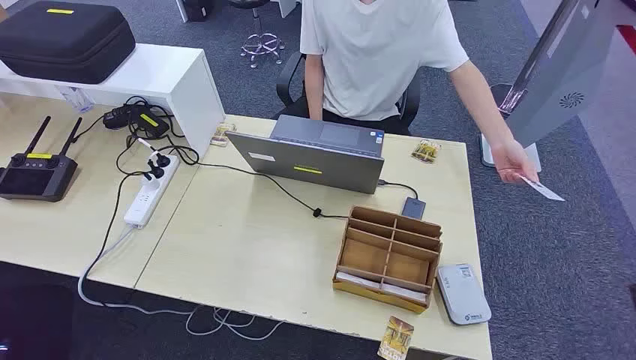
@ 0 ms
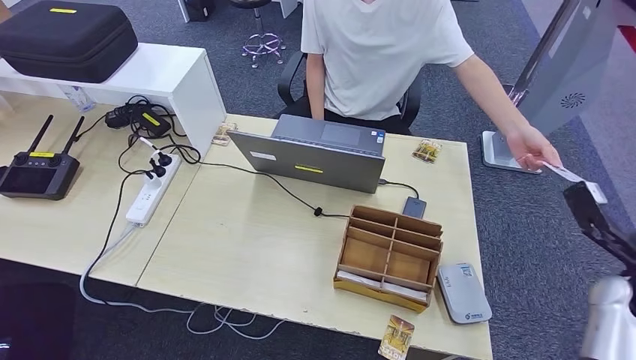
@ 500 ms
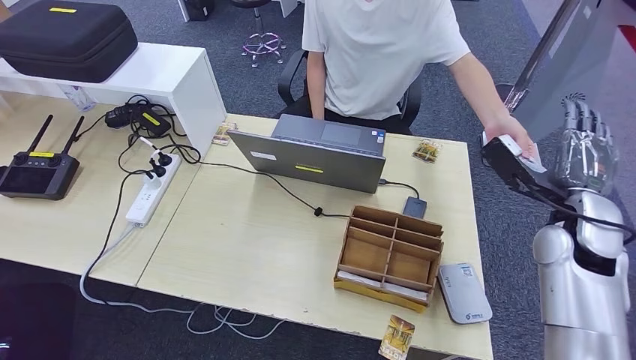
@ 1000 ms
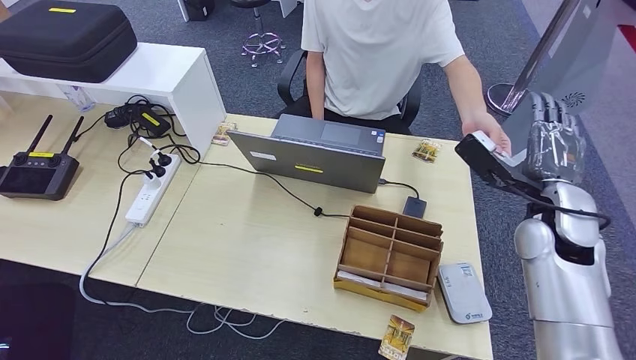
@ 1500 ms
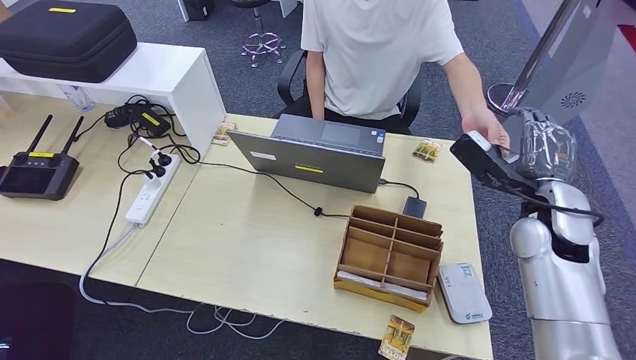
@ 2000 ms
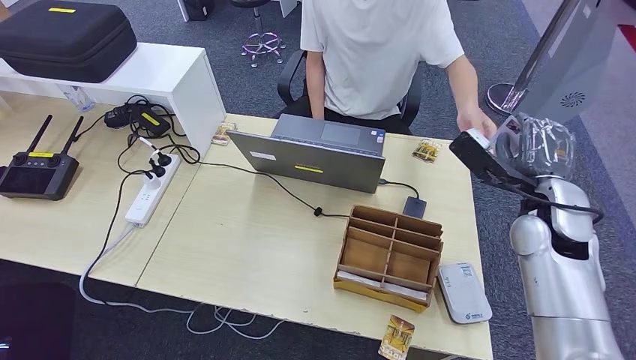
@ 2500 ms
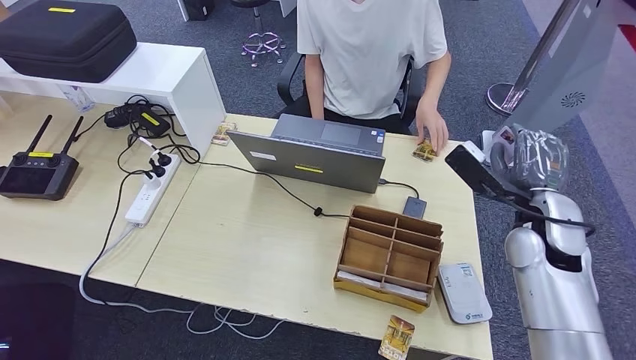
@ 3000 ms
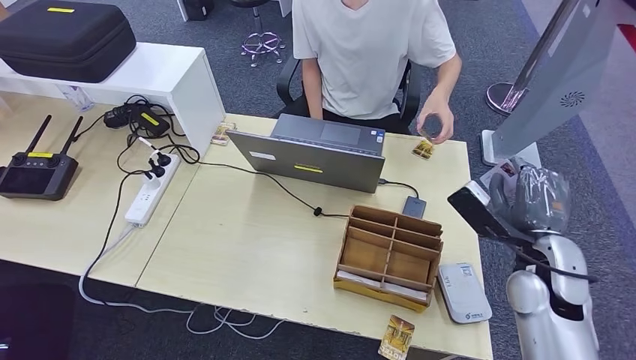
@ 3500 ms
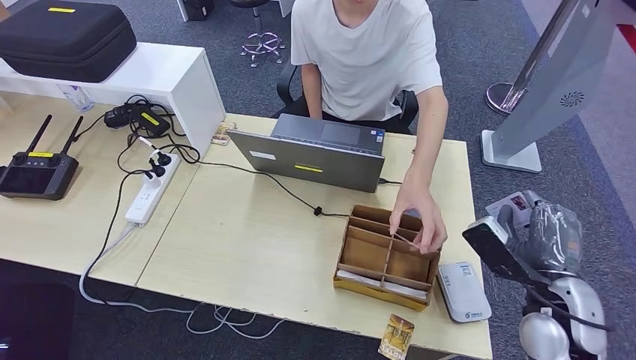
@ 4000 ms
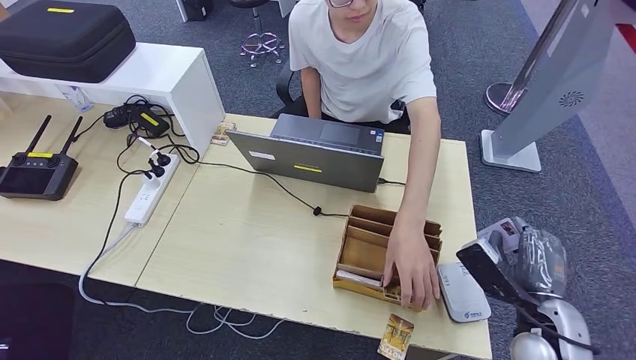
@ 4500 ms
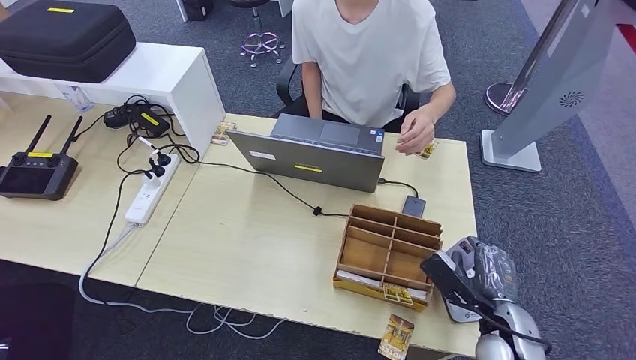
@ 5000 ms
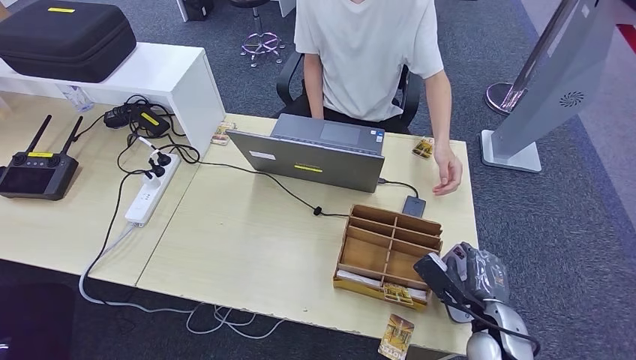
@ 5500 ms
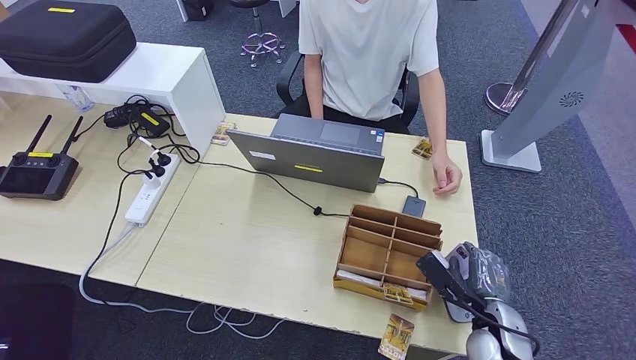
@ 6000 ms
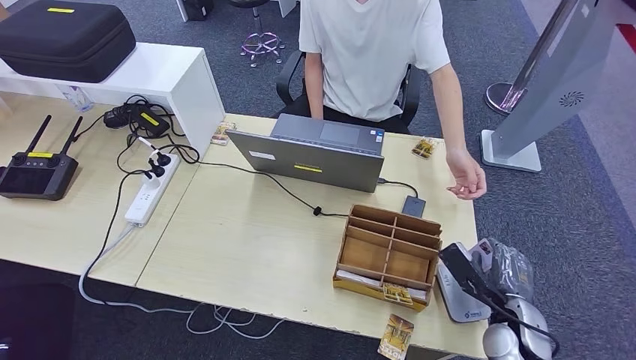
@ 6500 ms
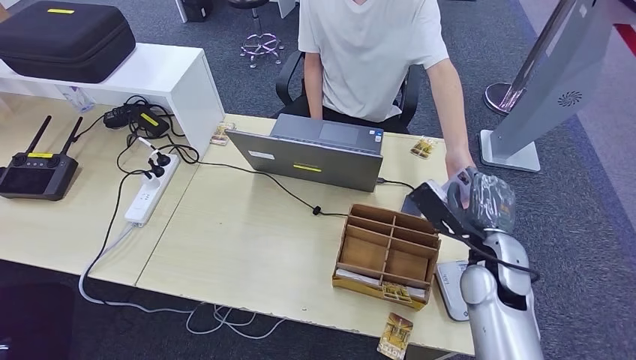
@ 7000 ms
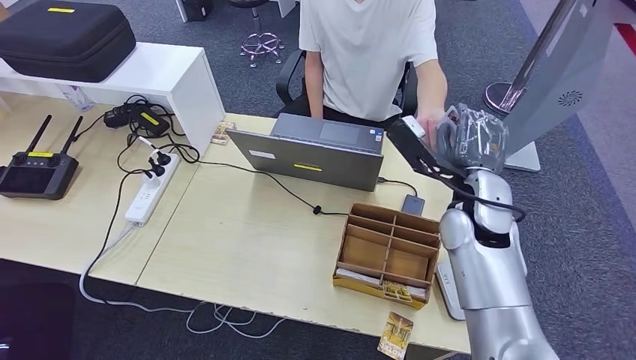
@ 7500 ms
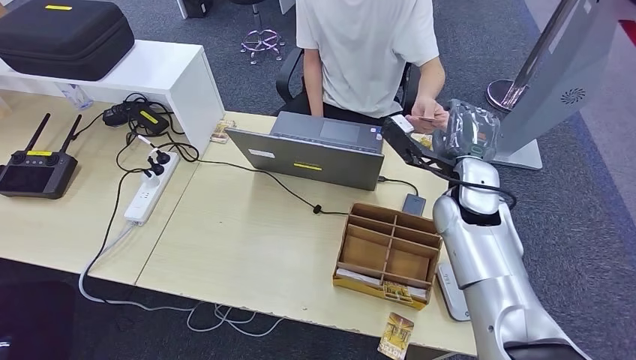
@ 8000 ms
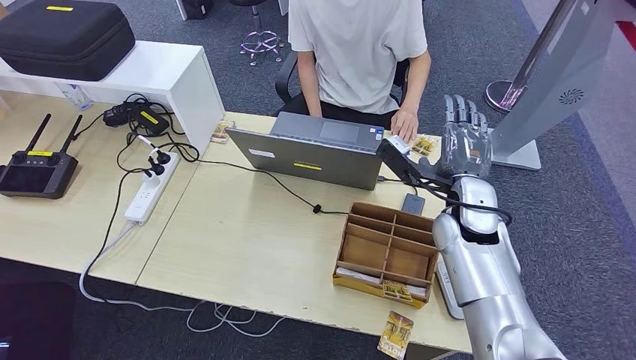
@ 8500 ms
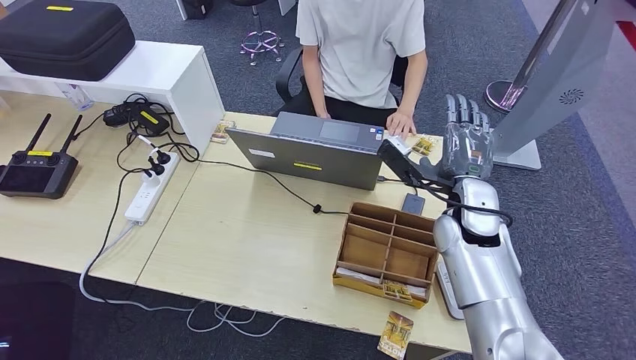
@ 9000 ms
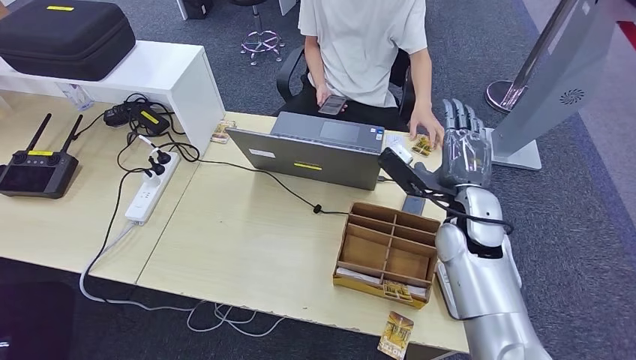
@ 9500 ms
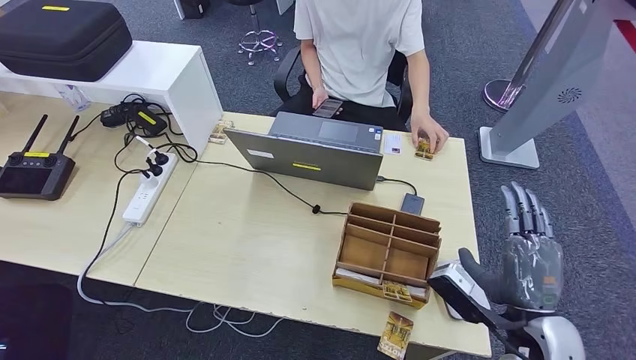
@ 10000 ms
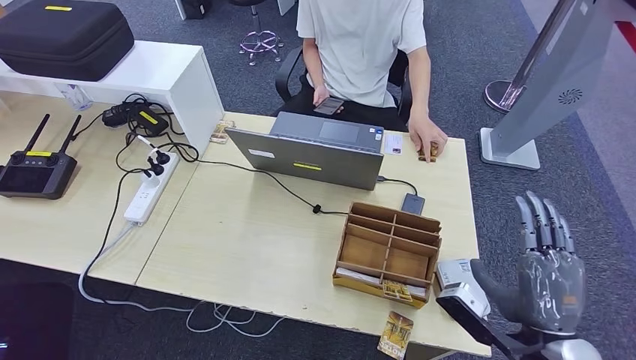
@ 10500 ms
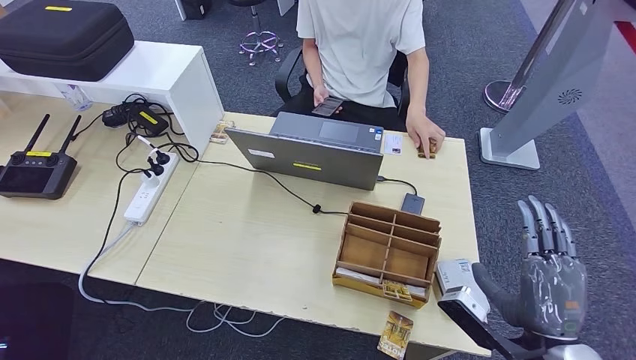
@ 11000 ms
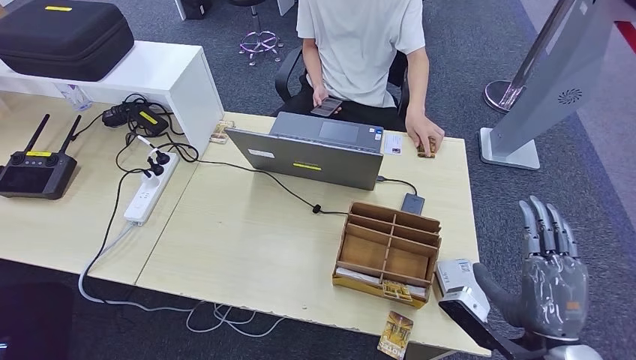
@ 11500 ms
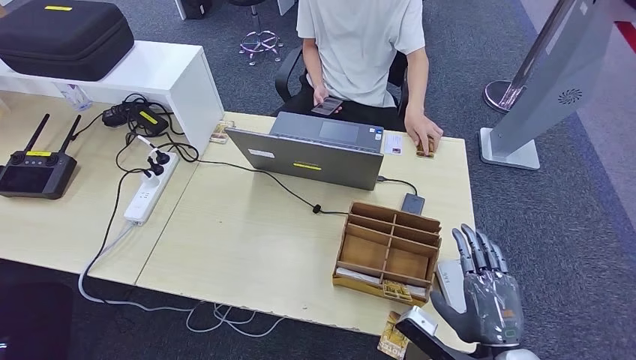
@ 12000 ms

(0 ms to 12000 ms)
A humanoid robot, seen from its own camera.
Step, 0 ms - 3500 ms: Take the ID card from the person's hand.
Step, 4000 ms - 6000 ms: Place the ID card on the card reader.
Step, 7000 ms - 8000 ms: Hand the ID card to the person.
2000 ms - 4000 ms: The right hand shifts approximately 15 cm backward and downward.
4000 ms - 6000 ms: The right hand shifts approximately 10 cm downward.
6000 ms - 8000 ms: The right hand travels upward, forward and to the left by some 25 cm.
8000 ms - 10000 ms: The right hand is displaced backward, to the right and downward by roughly 25 cm.
10000 ms - 12000 ms: The right hand shifts by roughly 5 cm.

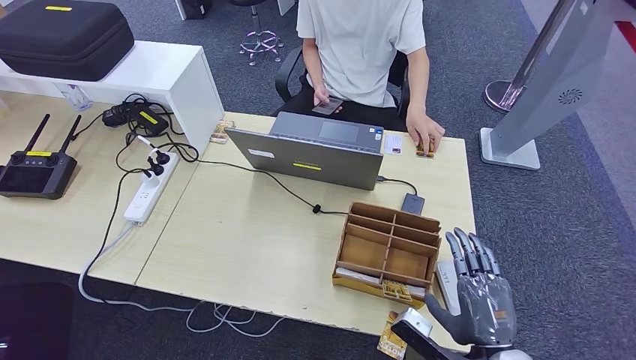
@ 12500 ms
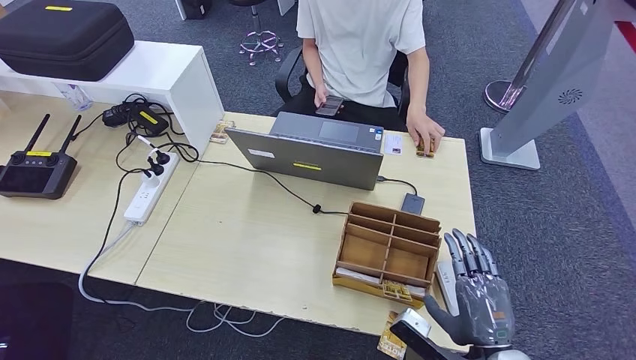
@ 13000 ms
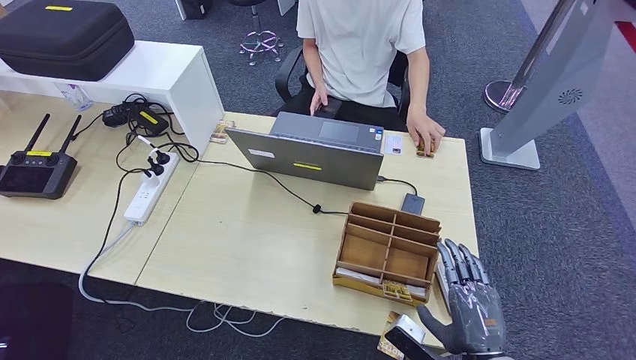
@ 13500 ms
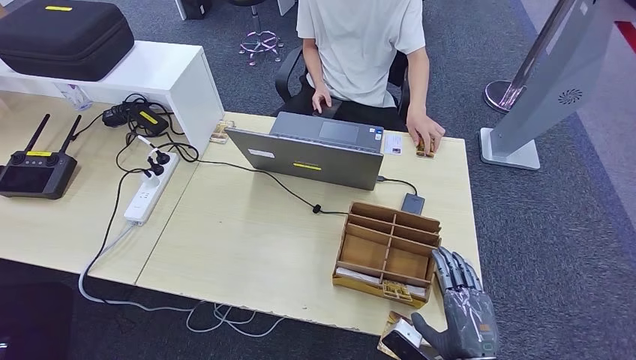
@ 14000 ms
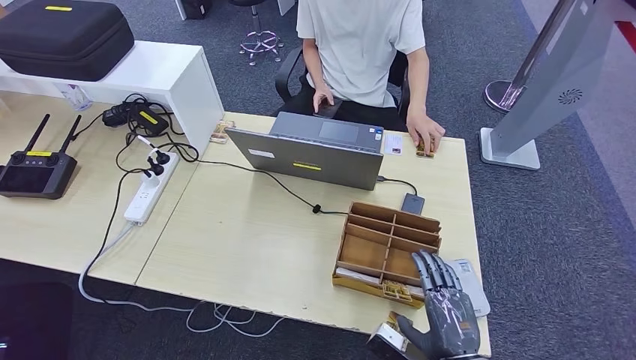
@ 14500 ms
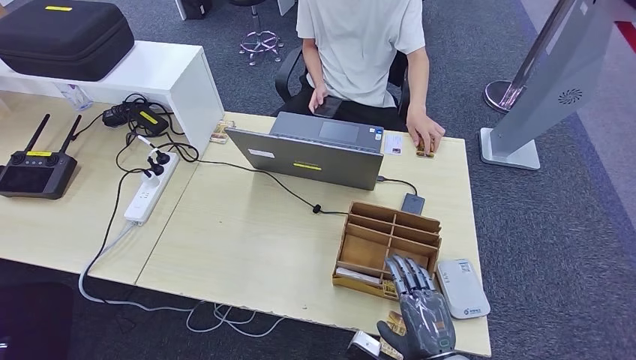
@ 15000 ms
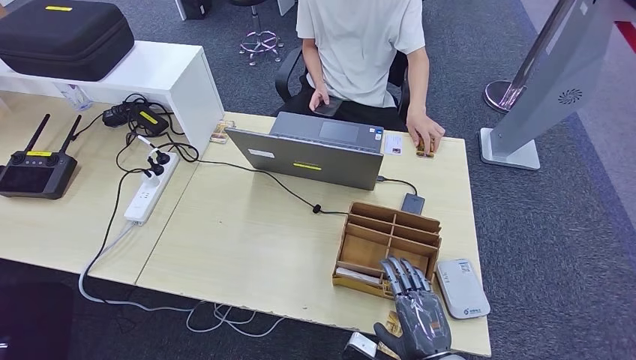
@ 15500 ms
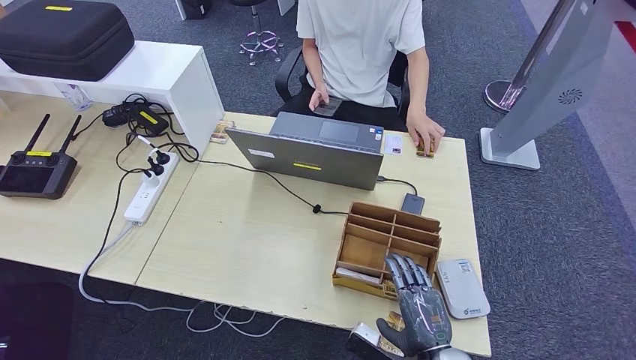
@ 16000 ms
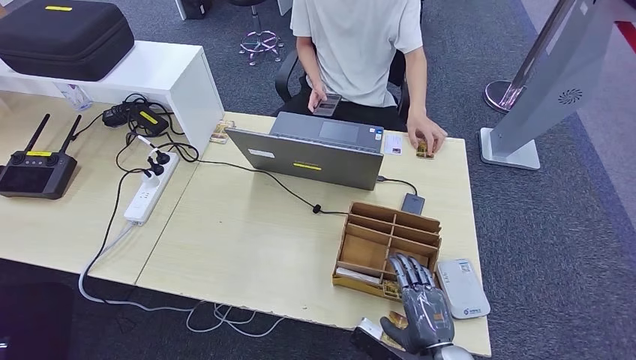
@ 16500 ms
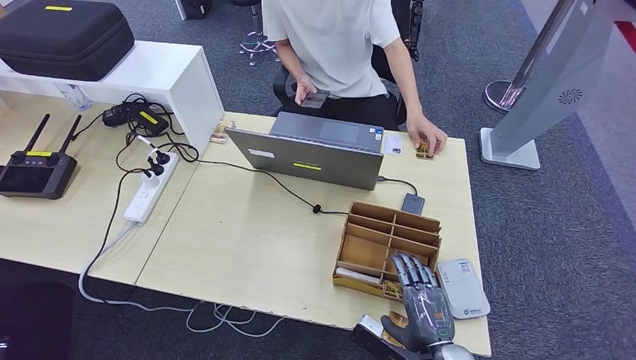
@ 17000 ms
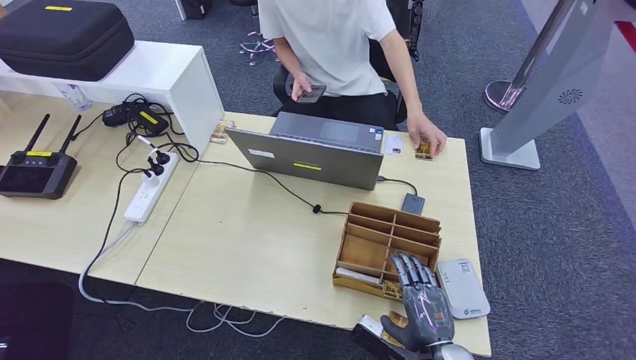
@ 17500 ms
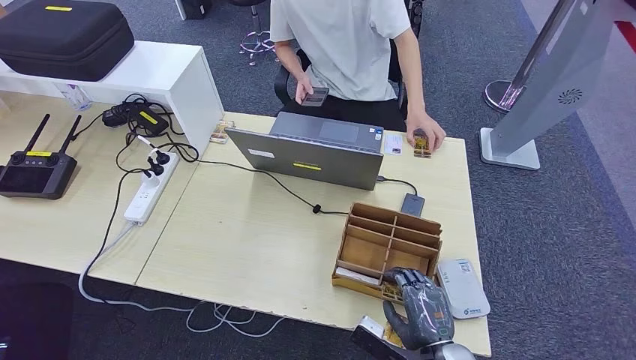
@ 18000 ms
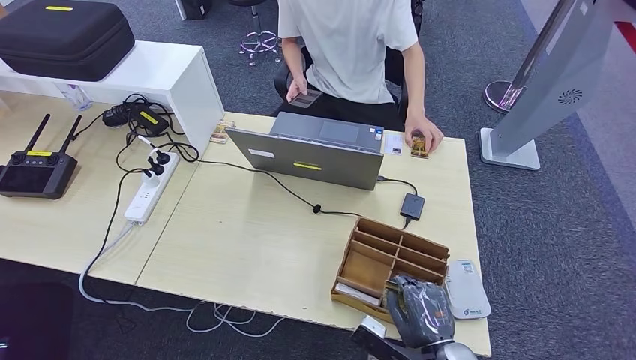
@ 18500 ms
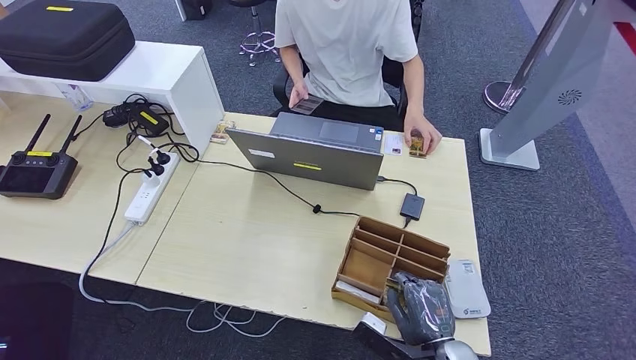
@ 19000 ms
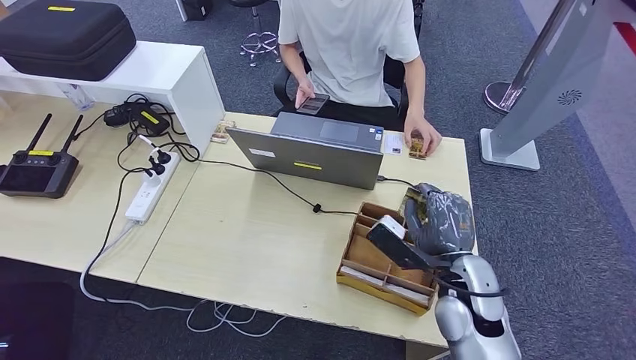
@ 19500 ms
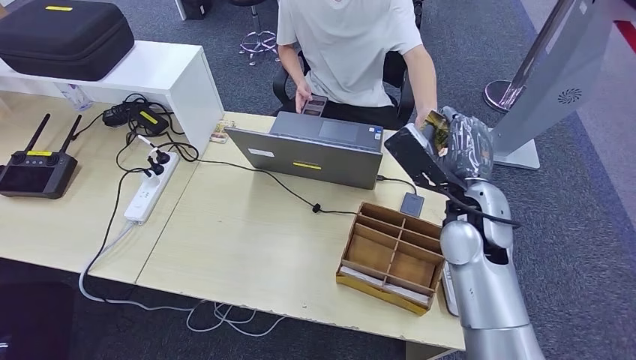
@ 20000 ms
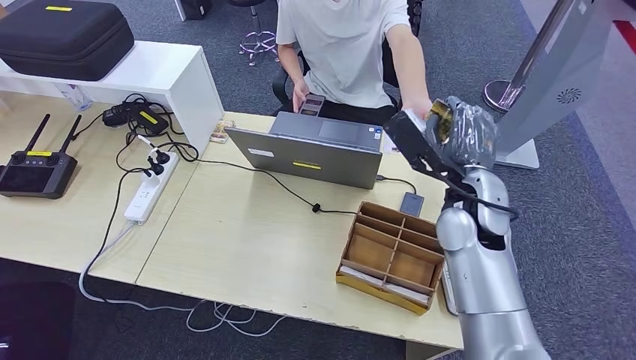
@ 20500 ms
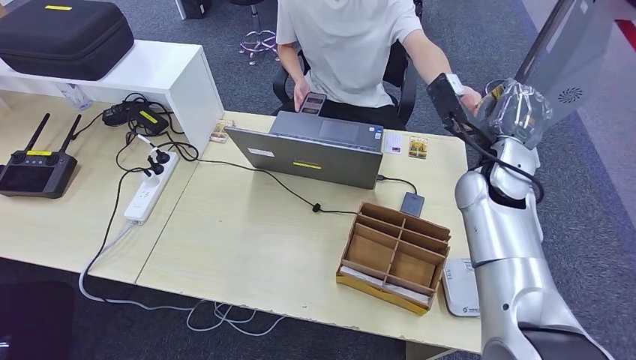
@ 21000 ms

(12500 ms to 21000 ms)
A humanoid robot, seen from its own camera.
Step, 12500 ms - 19000 ms: Pick up the room key from the key card box.
12500 ms - 14500 ms: There are only small adjustments of the hands.
14500 ms - 16500 ms: The hands make only small movements.
16500 ms - 19000 ms: The two hands keep their place.
19000 ms - 21000 ms: The right hand heads forward and upward, covering about 35 cm.
